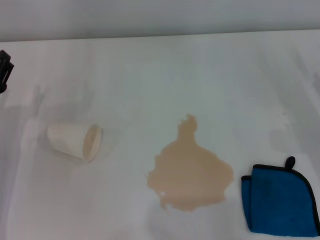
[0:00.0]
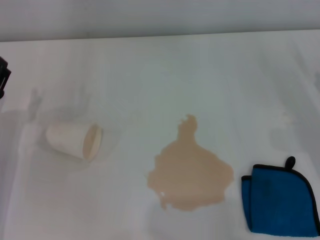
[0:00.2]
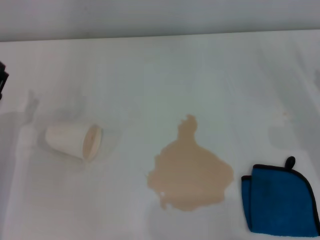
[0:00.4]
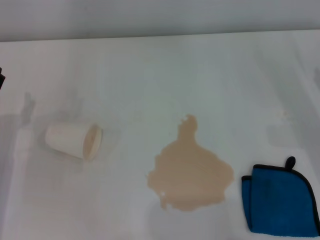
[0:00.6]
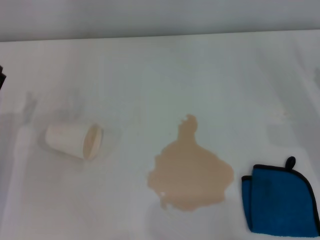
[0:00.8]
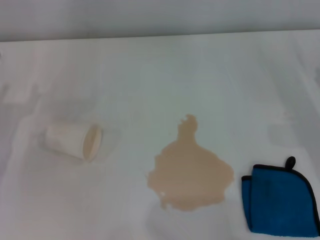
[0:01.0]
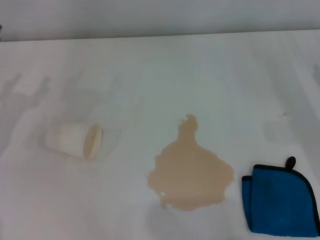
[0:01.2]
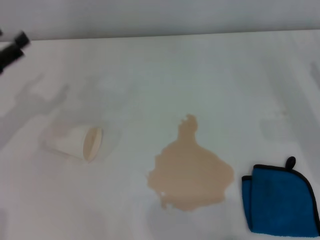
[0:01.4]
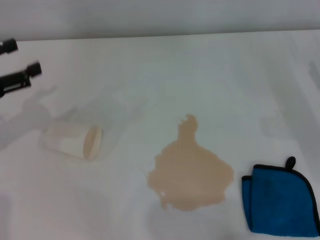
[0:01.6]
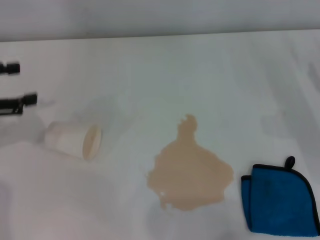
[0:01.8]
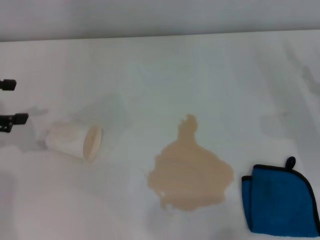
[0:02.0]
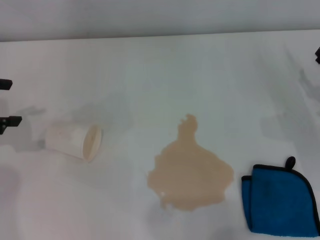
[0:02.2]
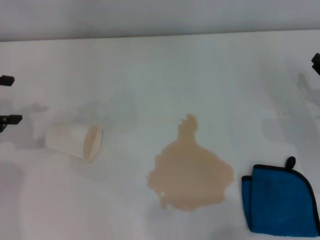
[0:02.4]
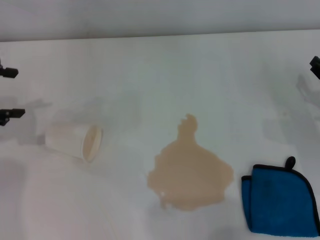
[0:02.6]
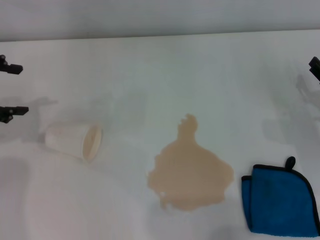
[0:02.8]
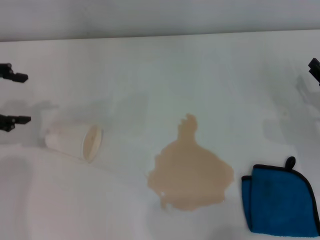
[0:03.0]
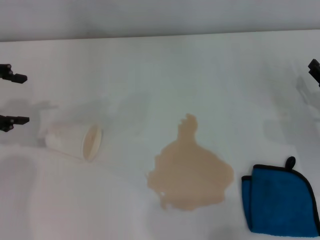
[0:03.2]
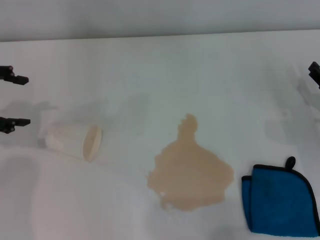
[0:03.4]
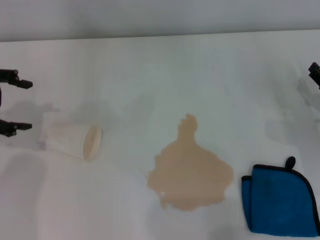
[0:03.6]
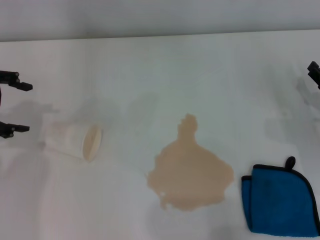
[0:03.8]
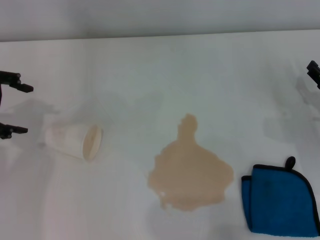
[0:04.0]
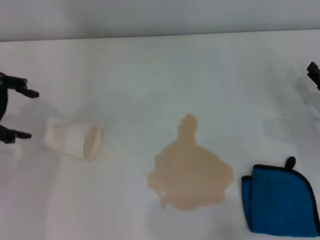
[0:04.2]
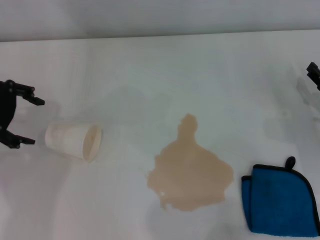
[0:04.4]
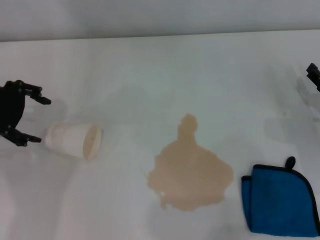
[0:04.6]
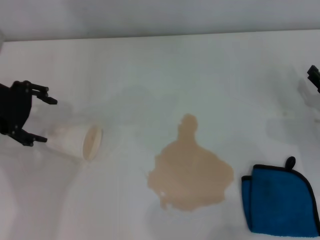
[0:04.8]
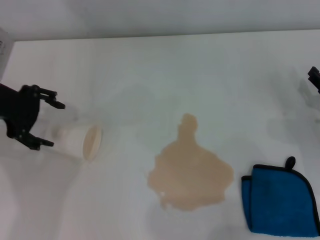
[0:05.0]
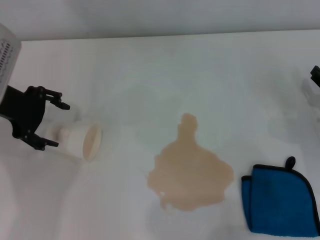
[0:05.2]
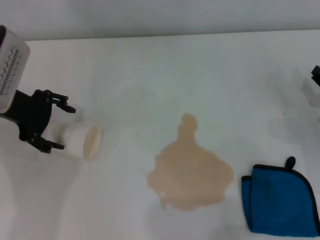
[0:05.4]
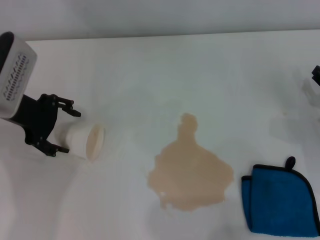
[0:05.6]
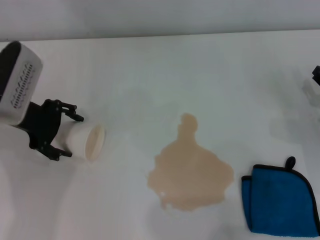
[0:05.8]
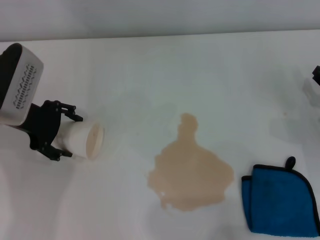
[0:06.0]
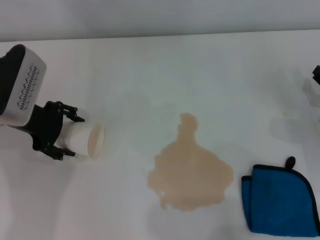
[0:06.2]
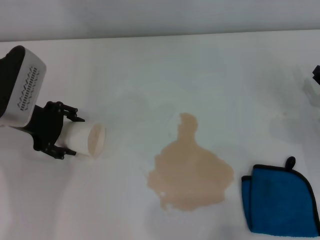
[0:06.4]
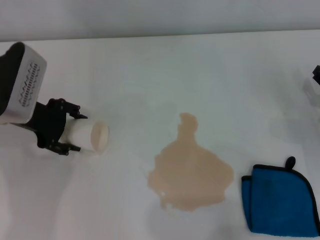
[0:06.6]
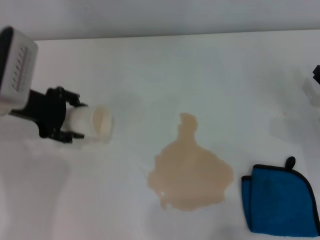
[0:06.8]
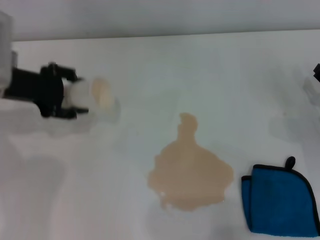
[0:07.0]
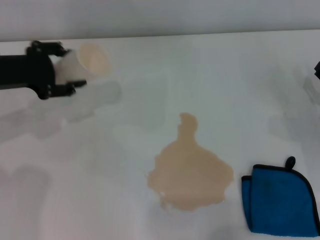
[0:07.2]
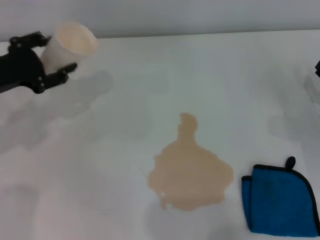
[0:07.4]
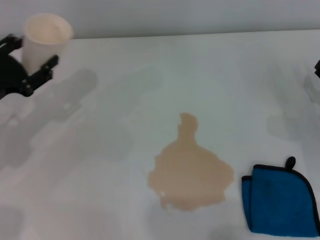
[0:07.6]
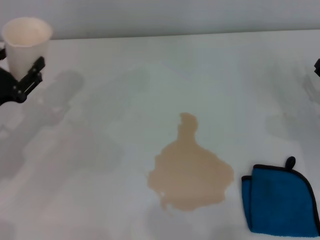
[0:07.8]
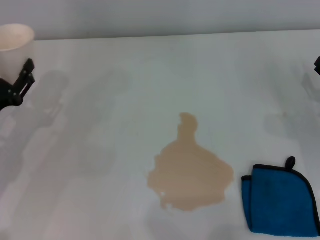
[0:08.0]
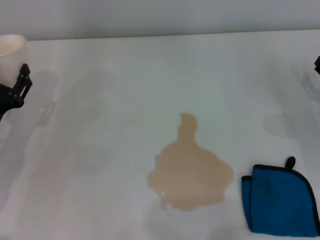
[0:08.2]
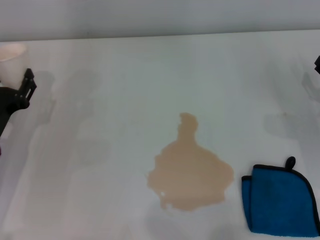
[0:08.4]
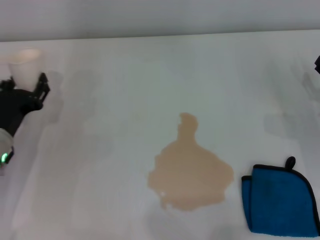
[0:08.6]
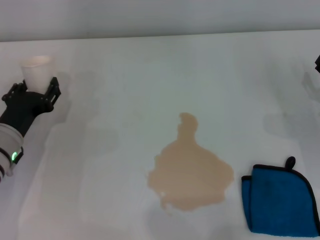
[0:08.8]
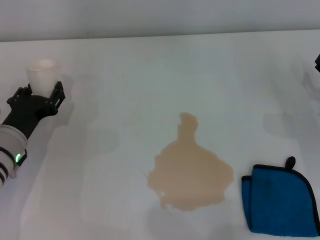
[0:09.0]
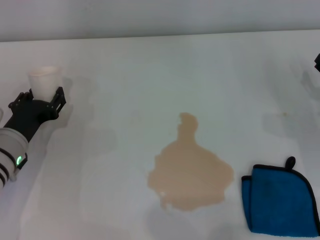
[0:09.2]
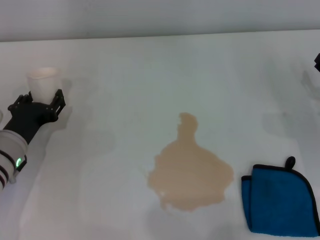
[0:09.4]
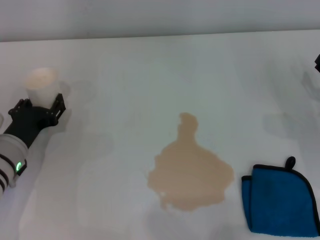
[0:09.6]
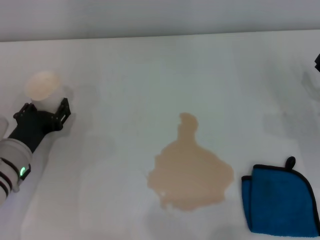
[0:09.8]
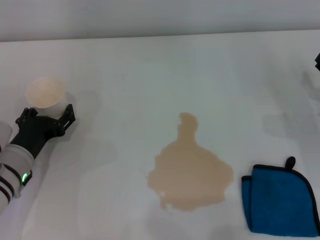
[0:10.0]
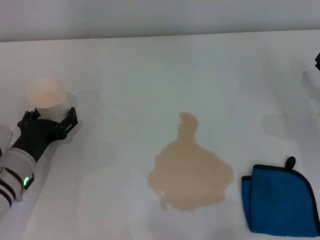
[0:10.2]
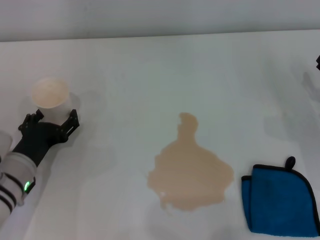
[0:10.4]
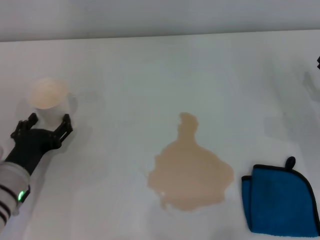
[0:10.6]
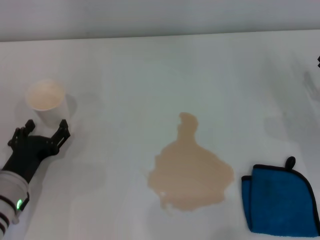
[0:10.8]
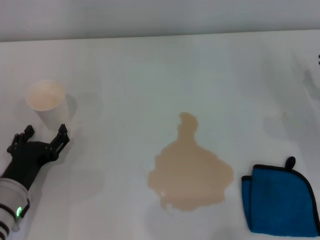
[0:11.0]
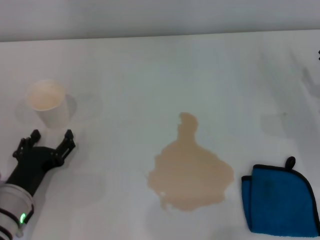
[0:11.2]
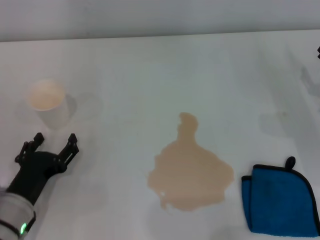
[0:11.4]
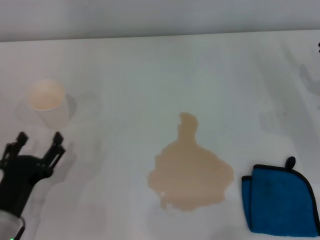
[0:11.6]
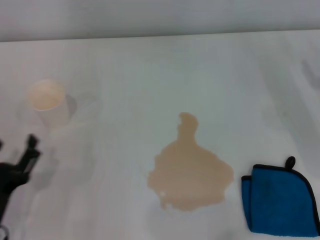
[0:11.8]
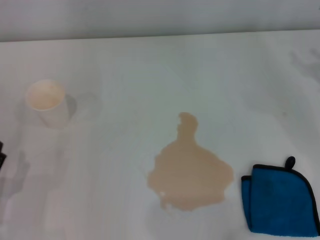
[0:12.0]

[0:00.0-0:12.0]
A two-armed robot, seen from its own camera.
Step, 0:00.0 to 0:06.0: Grasp the paper cup with the left gripper.
Step, 0:06.2 to 0:10.2: Stand the paper cup upright with the left gripper.
0:00.0 to 0:01.6: The left gripper heads upward and to the left, covering approximately 10 cm.
0:01.6 to 0:03.0: The left gripper heads upward, covering roughly 5 cm.
0:04.4 to 0:06.0: The left gripper travels downward and to the right by about 10 cm.
0:06.0 to 0:07.6: The left gripper shifts approximately 10 cm to the left and backward, and closes up.
0:07.6 to 0:09.0: The left gripper shifts some 10 cm downward and to the right.
0:09.0 to 0:10.4: The left gripper opens up.
0:10.4 to 0:12.0: The left gripper moves backward and to the left, some 15 cm.

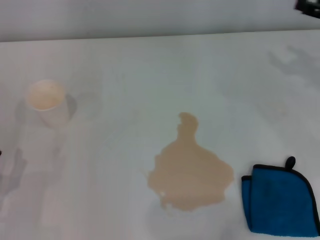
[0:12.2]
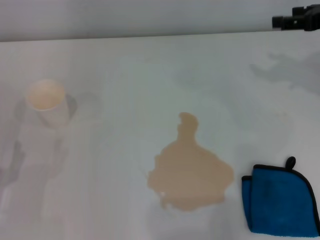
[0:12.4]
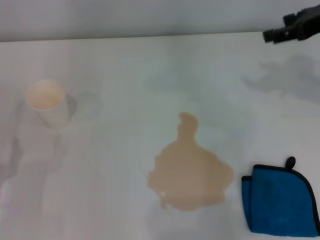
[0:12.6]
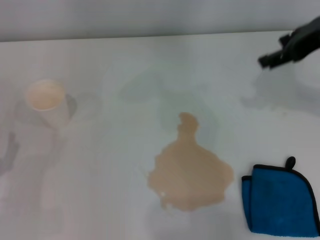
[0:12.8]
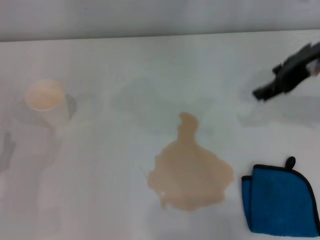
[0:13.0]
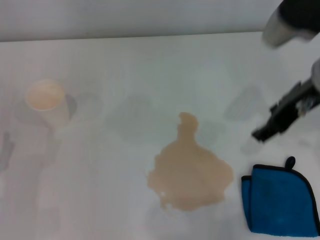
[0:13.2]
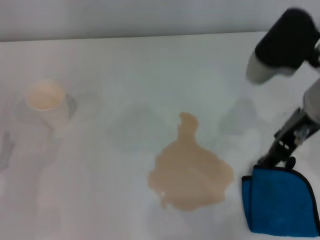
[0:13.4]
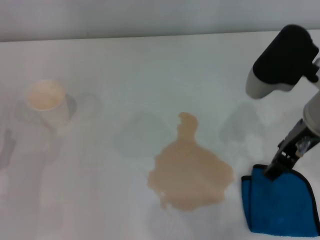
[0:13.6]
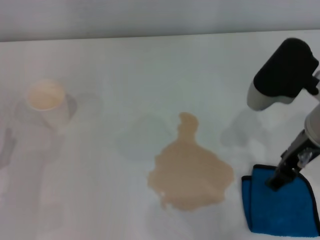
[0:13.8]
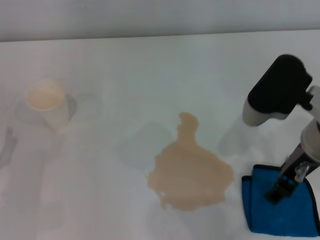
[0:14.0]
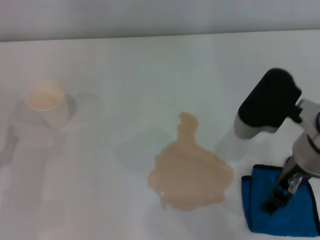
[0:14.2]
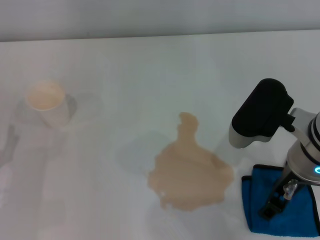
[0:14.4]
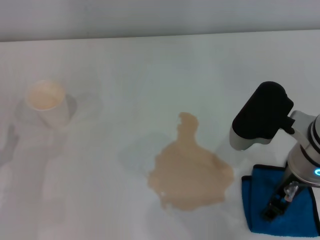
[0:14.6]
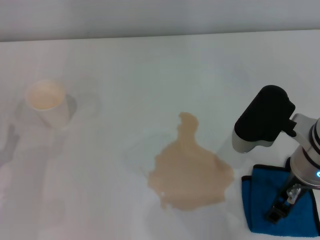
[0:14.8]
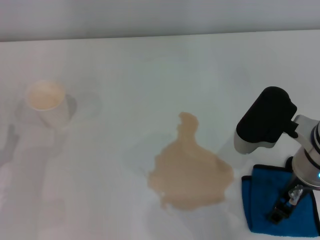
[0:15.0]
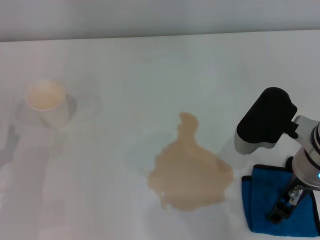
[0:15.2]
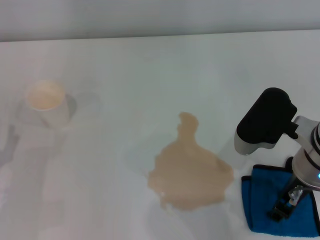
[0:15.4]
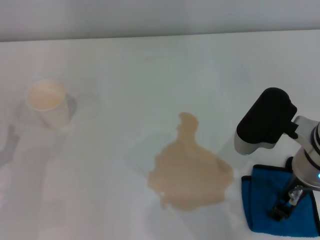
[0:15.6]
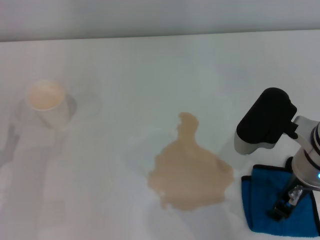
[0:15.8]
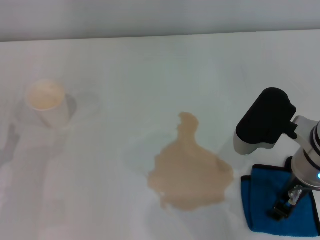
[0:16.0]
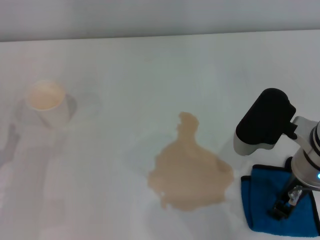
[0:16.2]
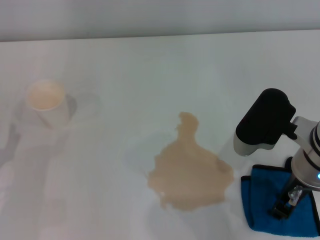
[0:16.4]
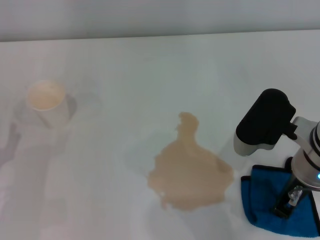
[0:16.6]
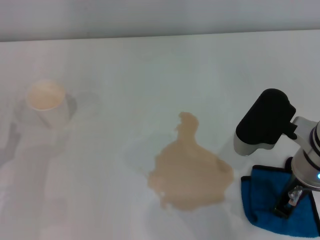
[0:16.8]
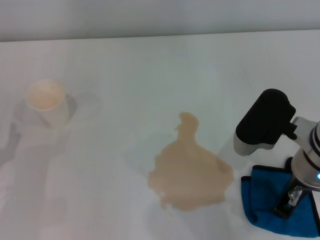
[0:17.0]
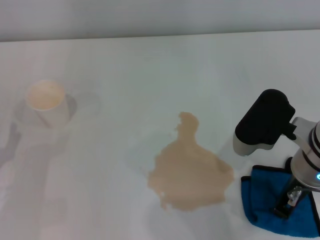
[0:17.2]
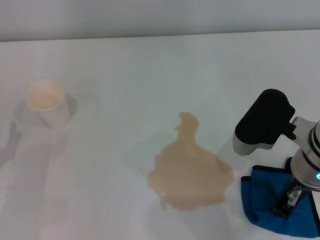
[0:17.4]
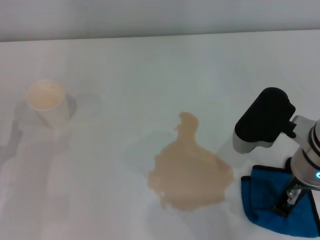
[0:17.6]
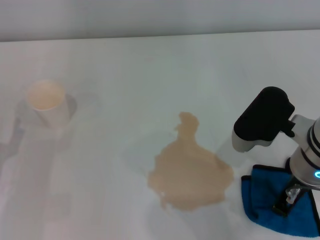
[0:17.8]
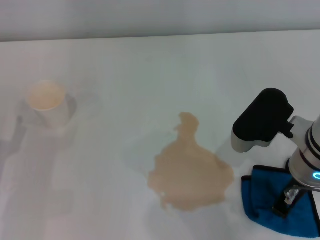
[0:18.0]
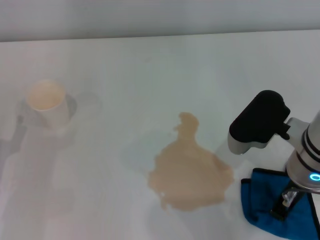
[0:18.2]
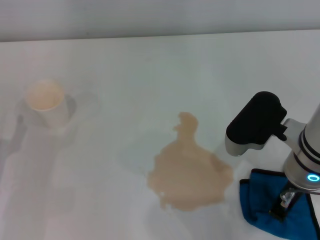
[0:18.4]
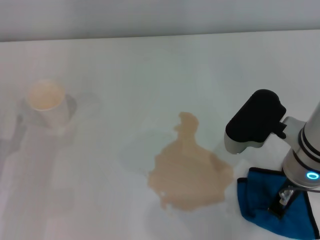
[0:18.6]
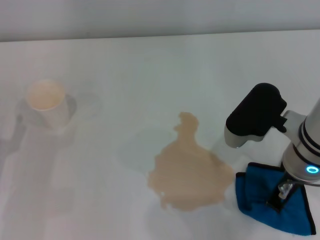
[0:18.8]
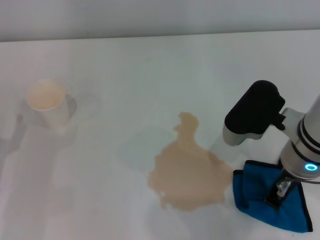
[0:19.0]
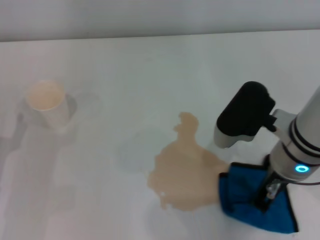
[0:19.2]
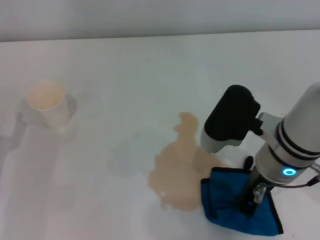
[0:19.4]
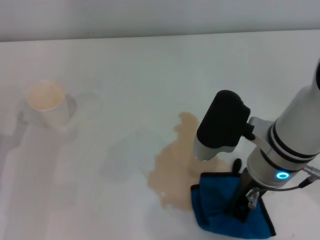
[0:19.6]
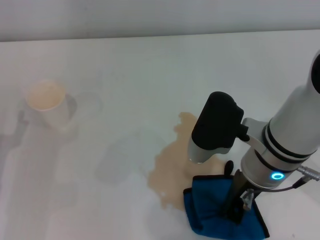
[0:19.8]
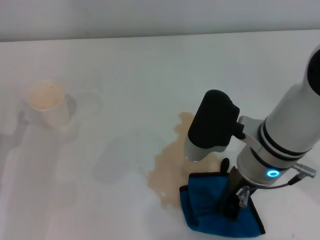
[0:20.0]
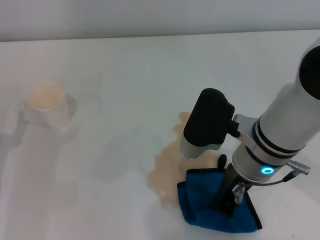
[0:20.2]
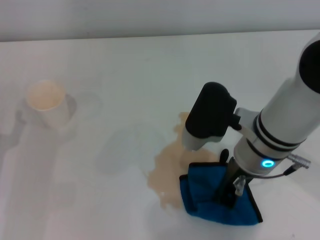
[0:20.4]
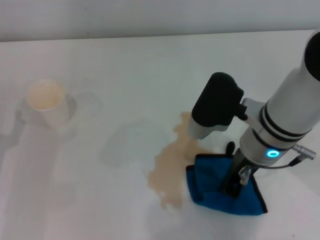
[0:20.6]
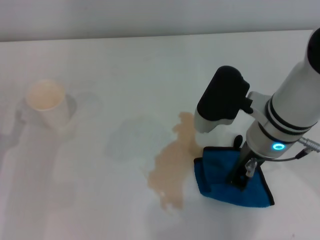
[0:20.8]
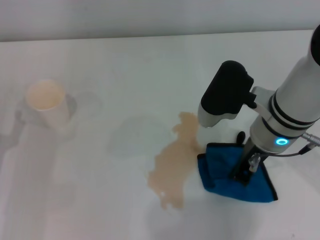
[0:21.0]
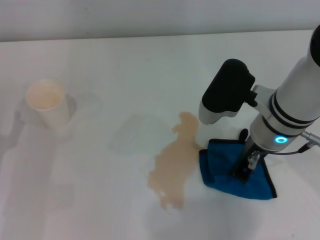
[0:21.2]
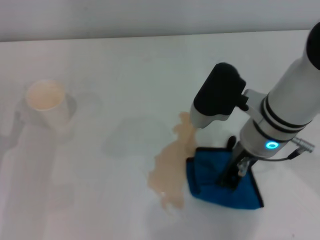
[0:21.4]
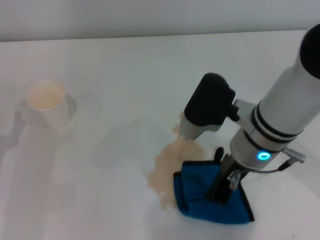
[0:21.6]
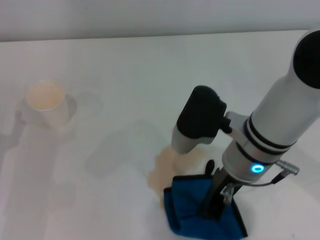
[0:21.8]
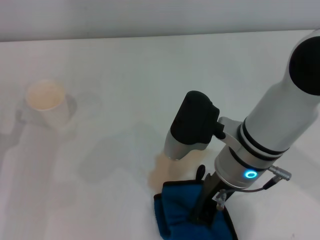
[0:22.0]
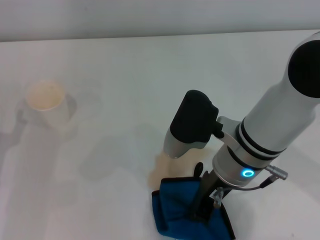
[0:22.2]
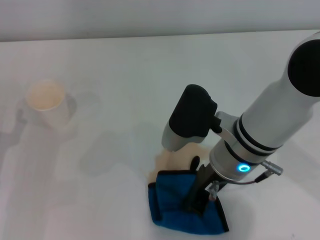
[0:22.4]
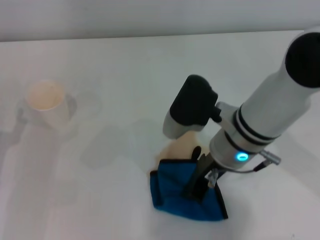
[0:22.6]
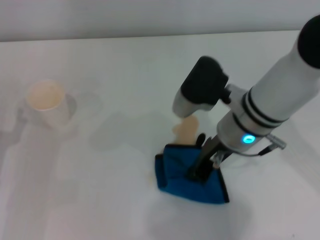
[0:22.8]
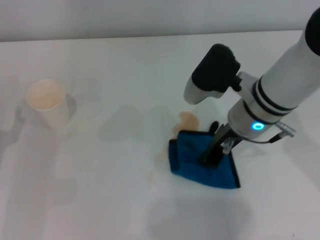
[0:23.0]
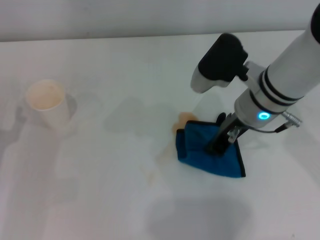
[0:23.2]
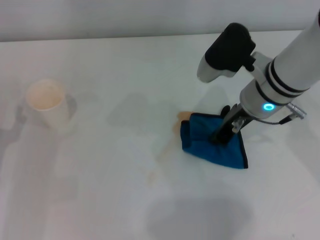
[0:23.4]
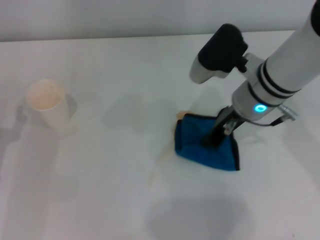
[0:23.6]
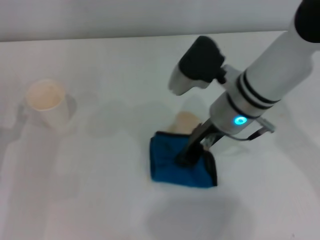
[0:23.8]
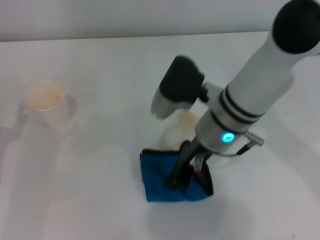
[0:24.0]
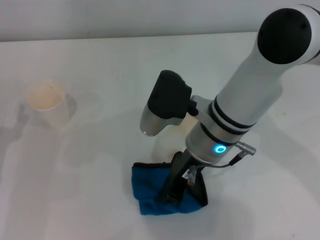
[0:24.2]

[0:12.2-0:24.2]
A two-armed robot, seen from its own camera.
Step, 0:12.2 to 0:17.6: Grasp the rag with the right gripper.
0:12.2 to 0:13.8: The right gripper is displaced to the left and backward by approximately 20 cm.
0:13.8 to 0:15.2: The right gripper moves approximately 5 cm.
0:15.2 to 0:16.6: The right gripper closes up.
0:16.6 to 0:18.2: The grippers move only a little.
0:19.8 to 0:21.2: The grippers move only a little.
